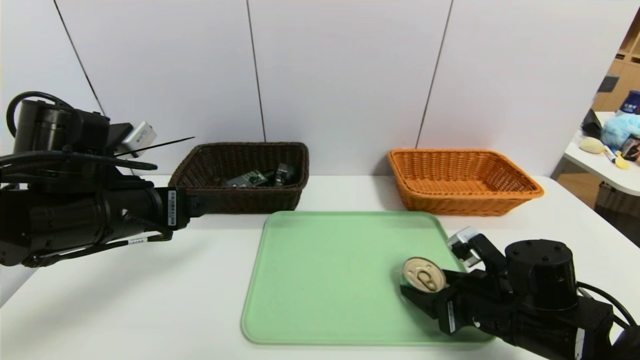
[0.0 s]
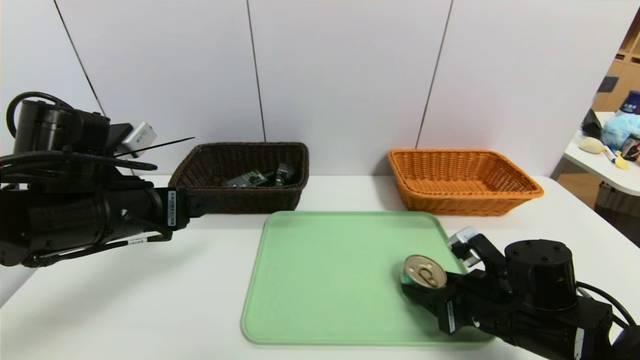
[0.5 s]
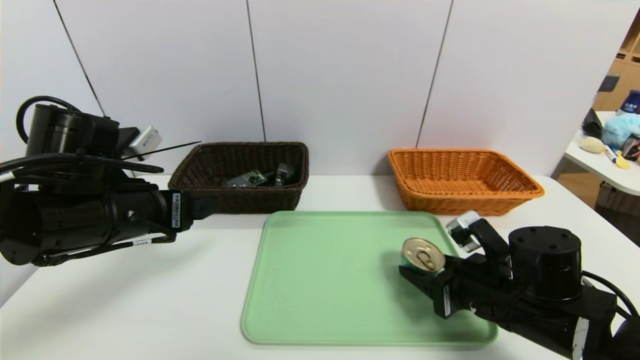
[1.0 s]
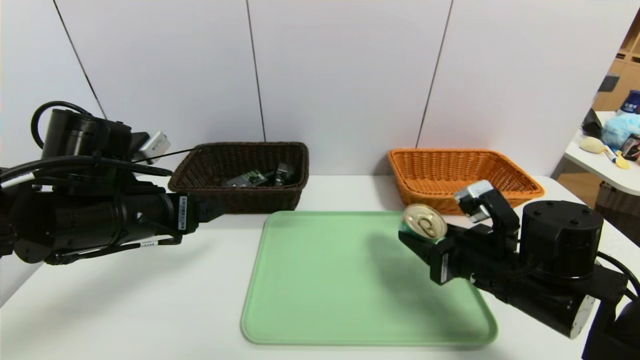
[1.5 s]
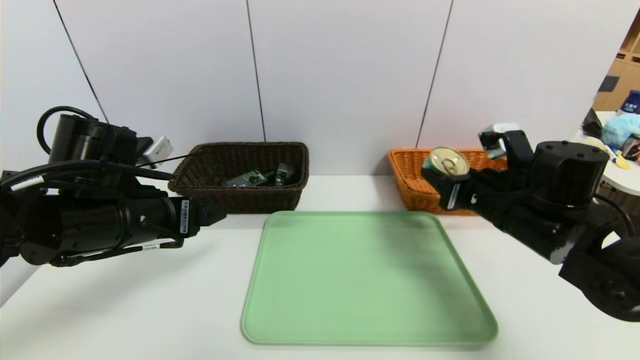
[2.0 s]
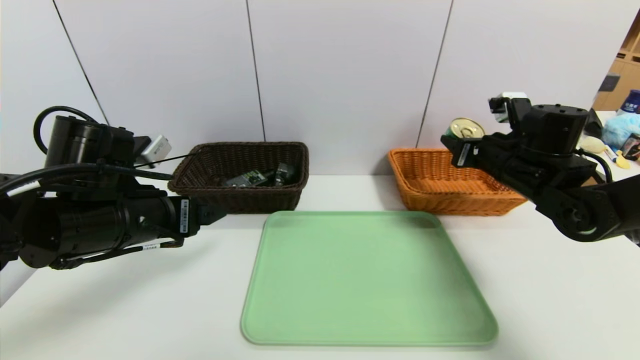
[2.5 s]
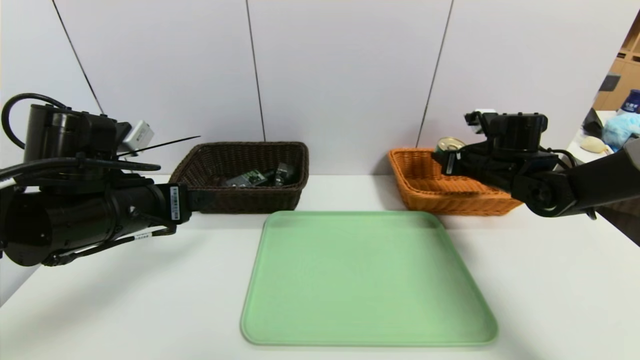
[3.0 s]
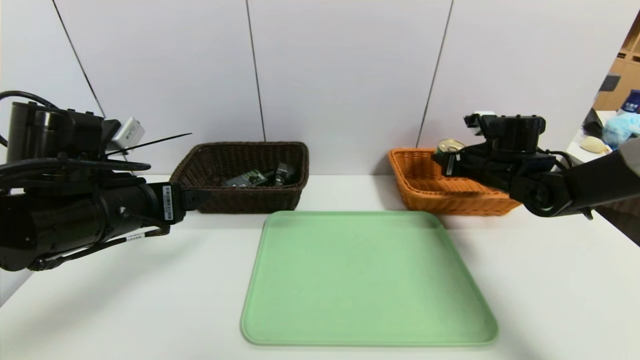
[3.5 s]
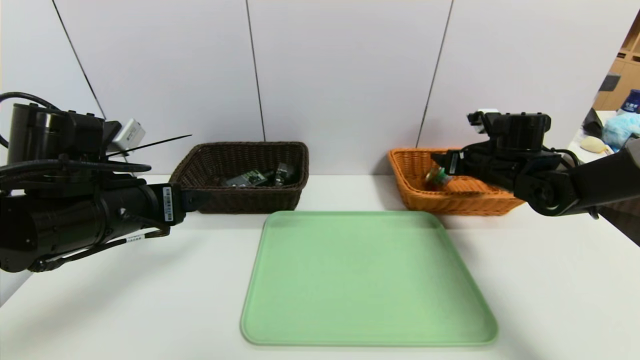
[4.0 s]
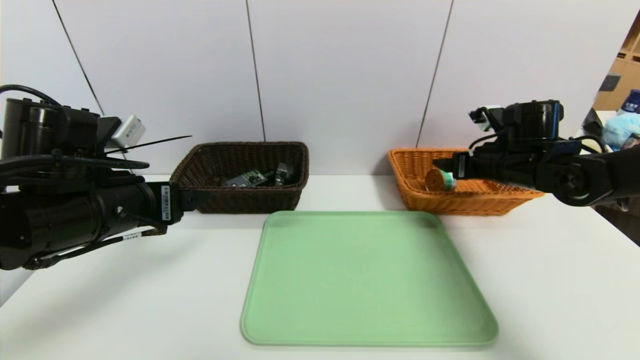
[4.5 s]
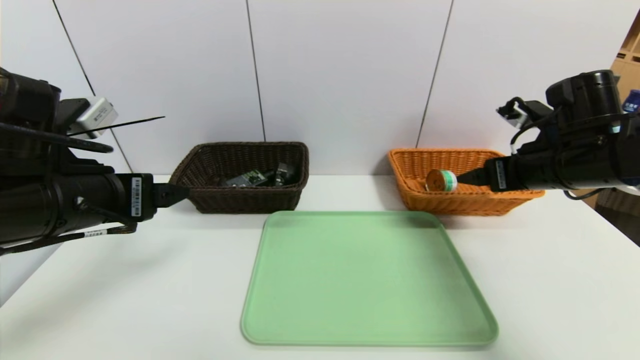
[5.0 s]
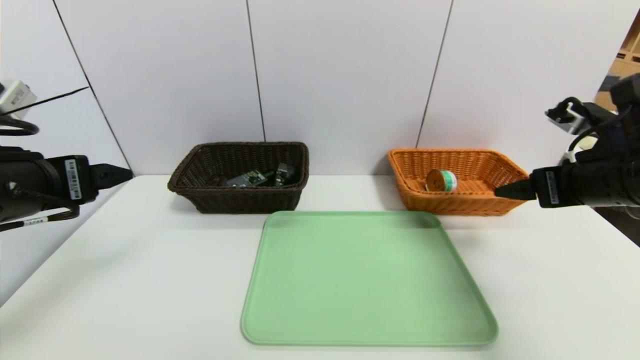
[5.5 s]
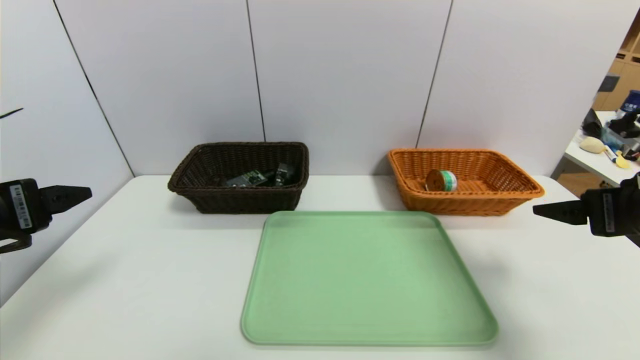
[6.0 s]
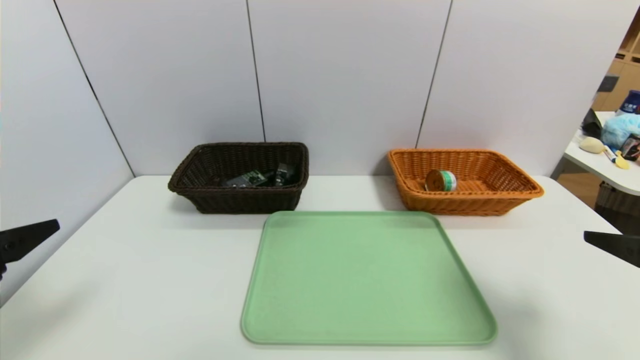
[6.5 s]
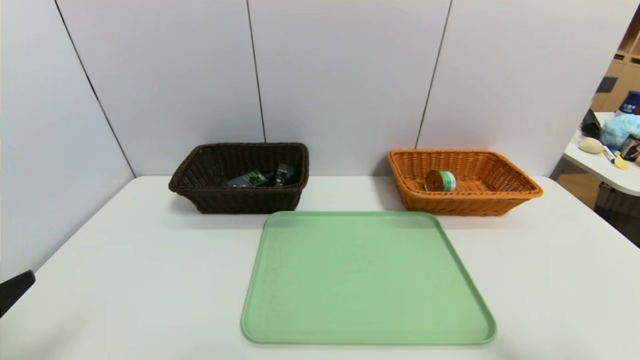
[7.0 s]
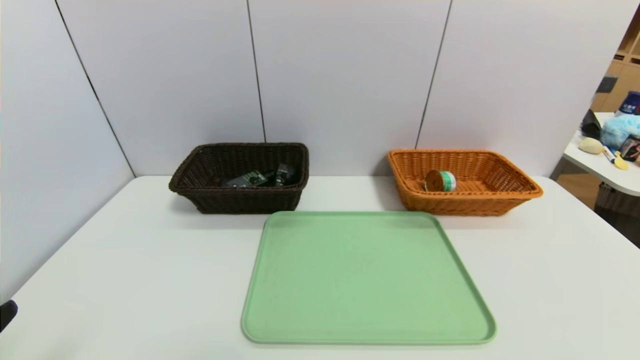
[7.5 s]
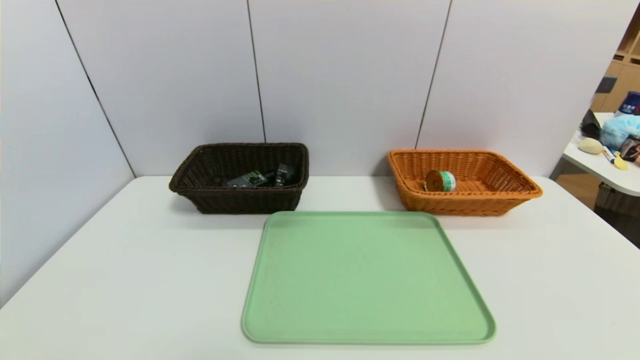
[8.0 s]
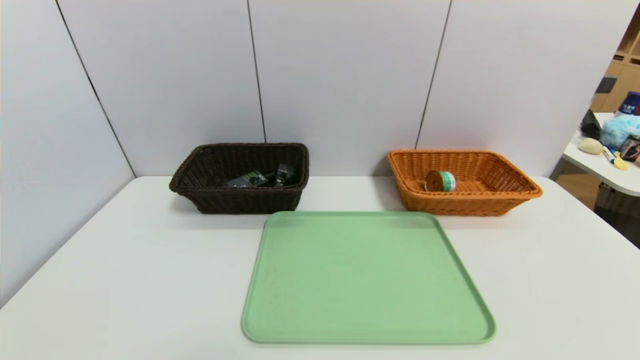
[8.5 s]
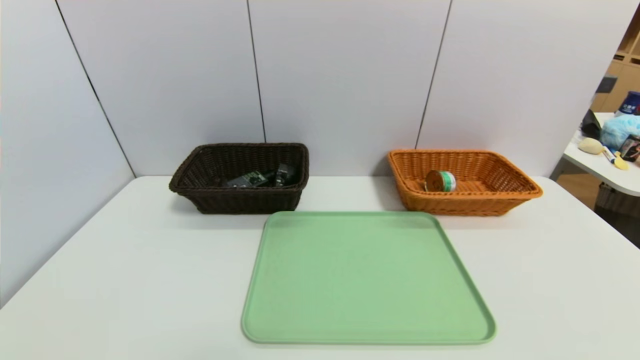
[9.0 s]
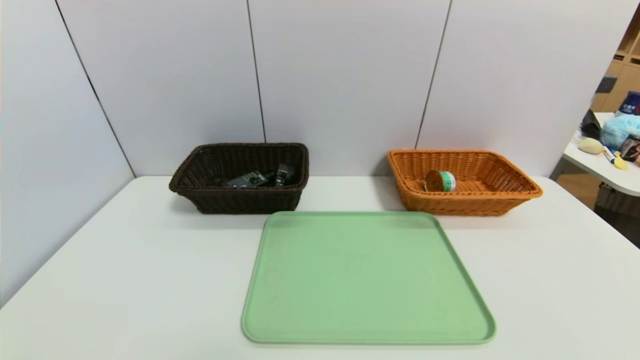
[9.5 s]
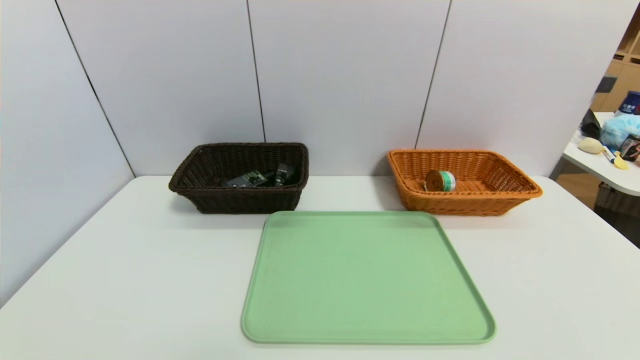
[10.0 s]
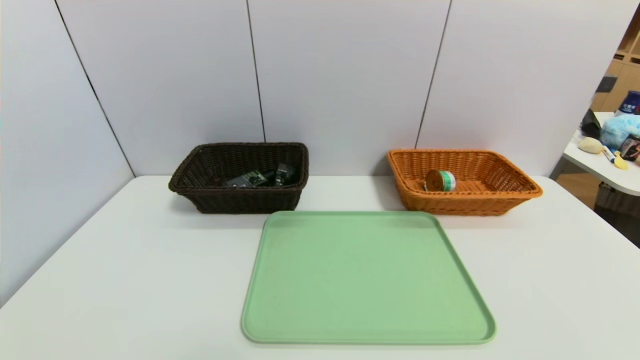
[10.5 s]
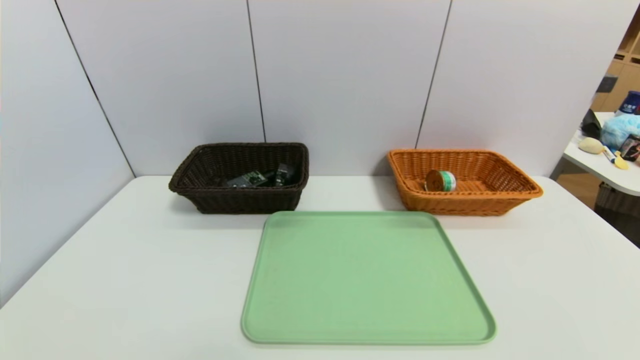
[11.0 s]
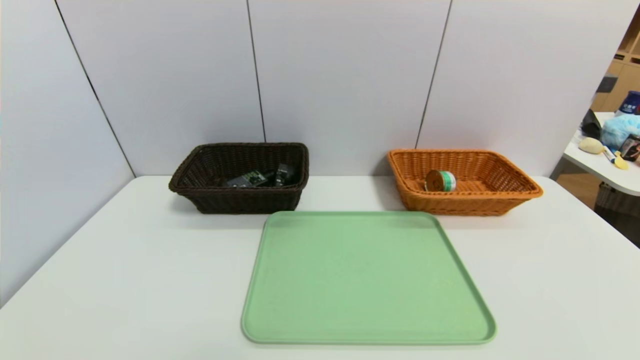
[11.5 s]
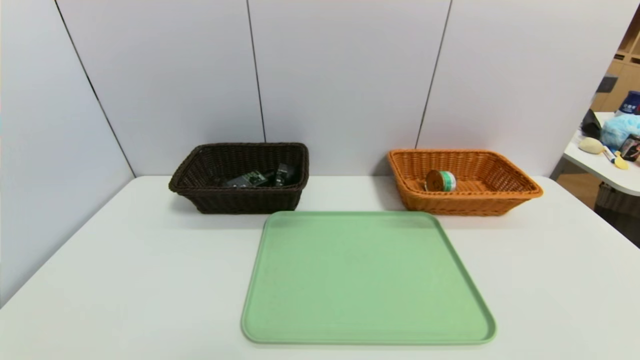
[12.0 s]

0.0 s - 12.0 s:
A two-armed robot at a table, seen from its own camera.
Task of the whole recording: place the food in the right basket with the right gripper, and place the non food items in the left basket with the left gripper.
Step, 0.0 s - 4.5 s: Grasp the can and put it in the right basket.
0.0 s - 2.0 s: The right gripper heads upward and forward, covering approximately 15 cm.
2.0 s - 4.0 s: The right gripper heads forward and to the right, covering roughly 15 cm, and opens its fingers.
4.0 s - 6.0 s: The left gripper heads backward and to the left, covering roughly 10 cm. Meanwhile the right gripper travels backward by roughly 20 cm, and opens.
6.0 s - 8.0 s: The left gripper is displaced backward and downward by some 20 cm. The right gripper moves backward, about 25 cm.

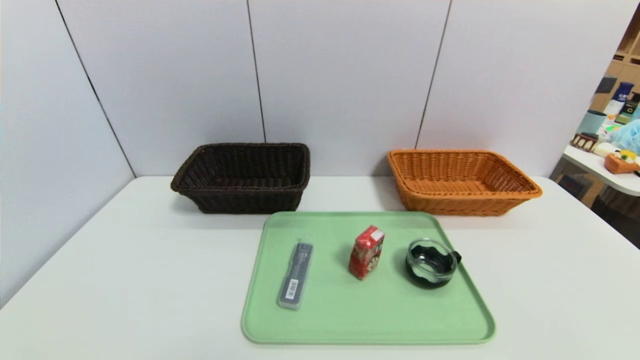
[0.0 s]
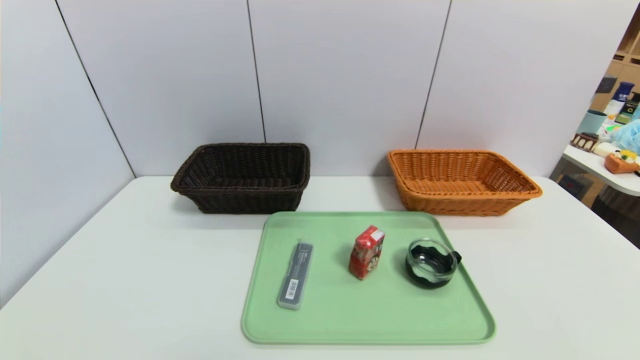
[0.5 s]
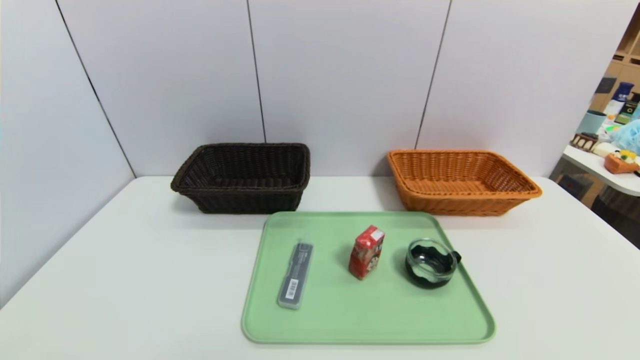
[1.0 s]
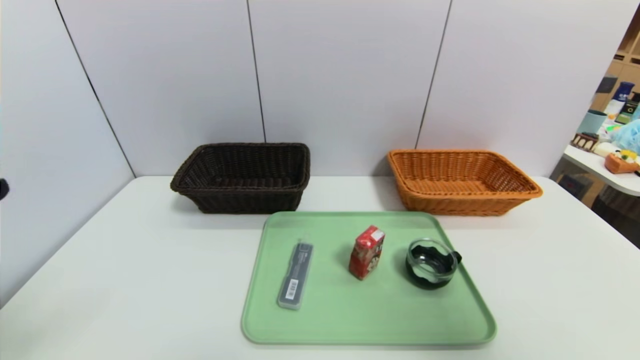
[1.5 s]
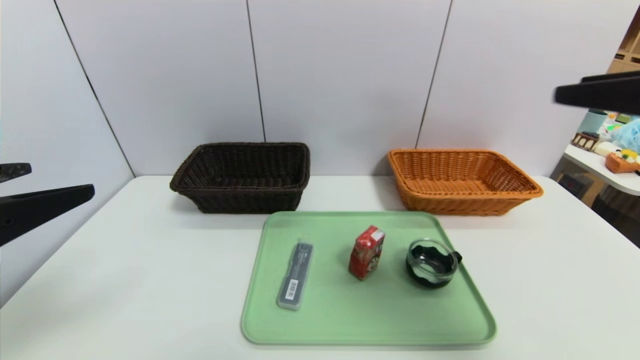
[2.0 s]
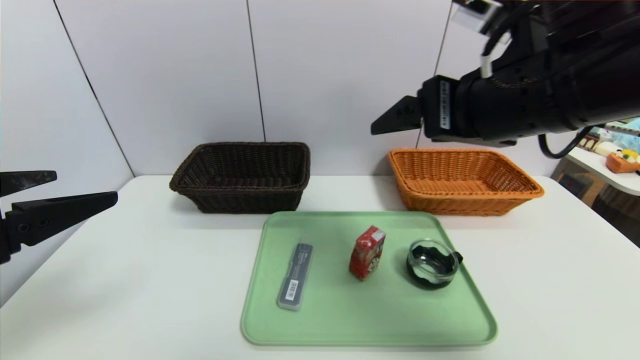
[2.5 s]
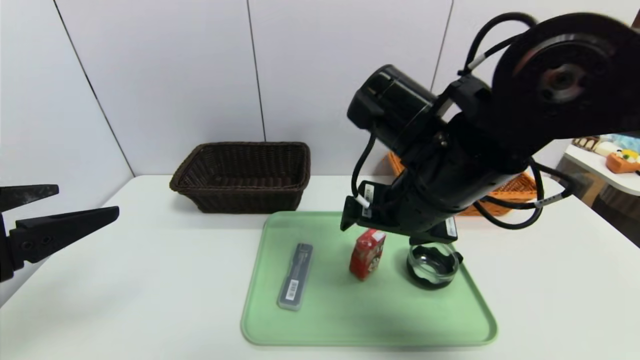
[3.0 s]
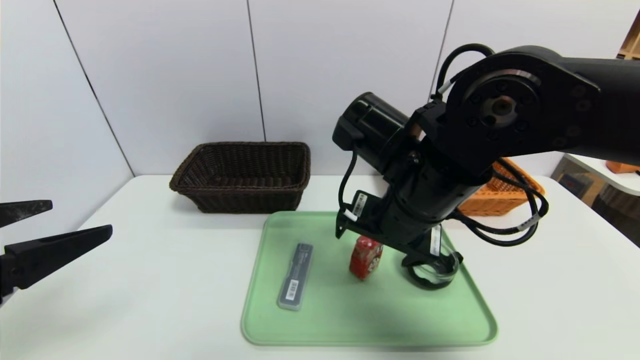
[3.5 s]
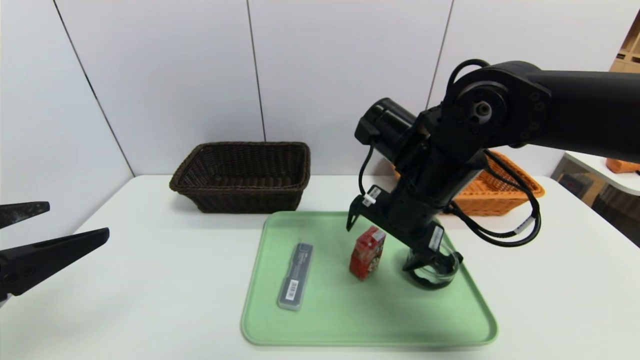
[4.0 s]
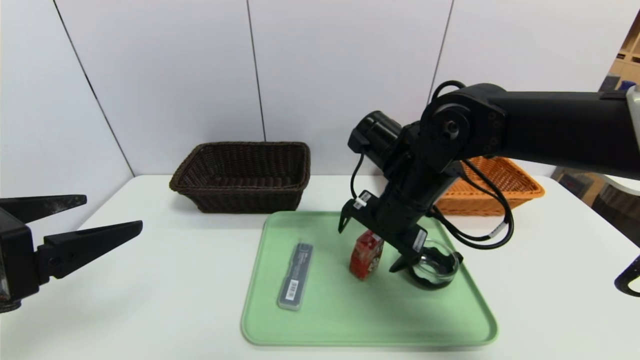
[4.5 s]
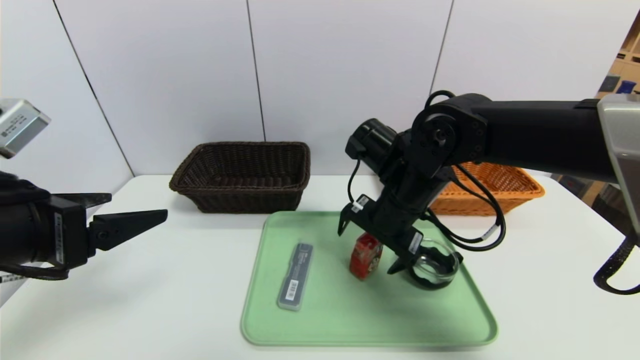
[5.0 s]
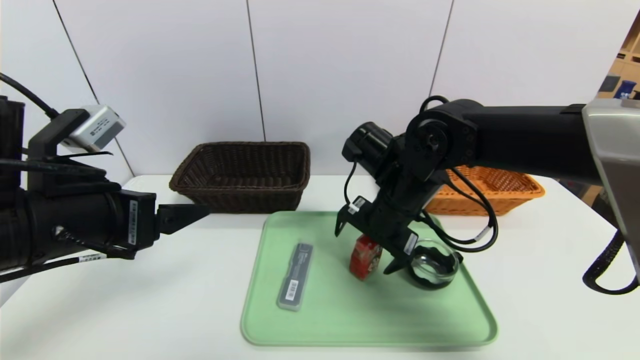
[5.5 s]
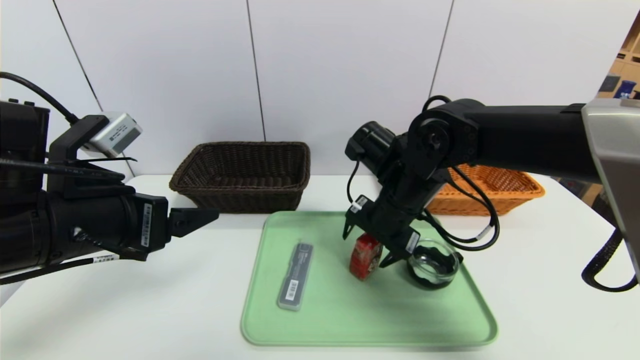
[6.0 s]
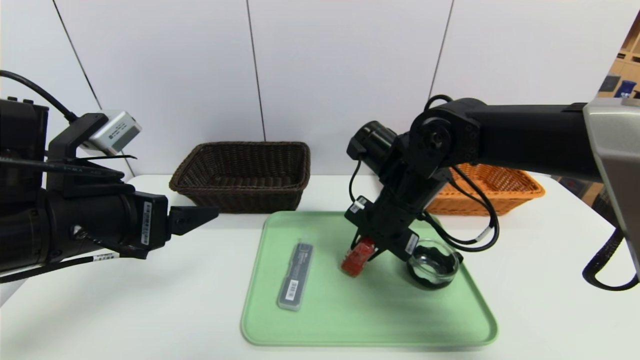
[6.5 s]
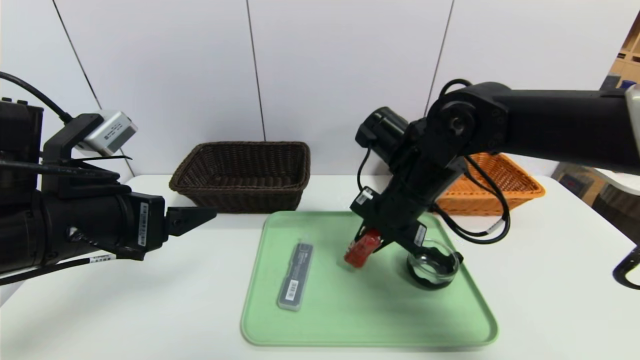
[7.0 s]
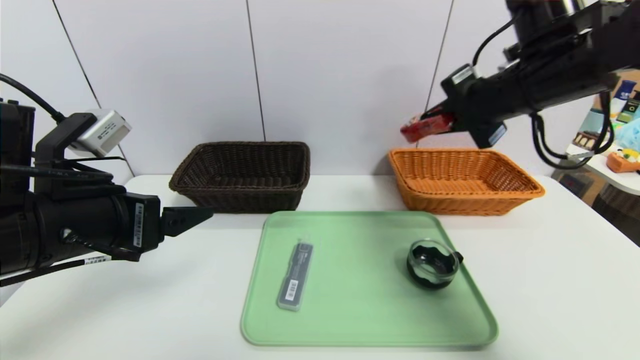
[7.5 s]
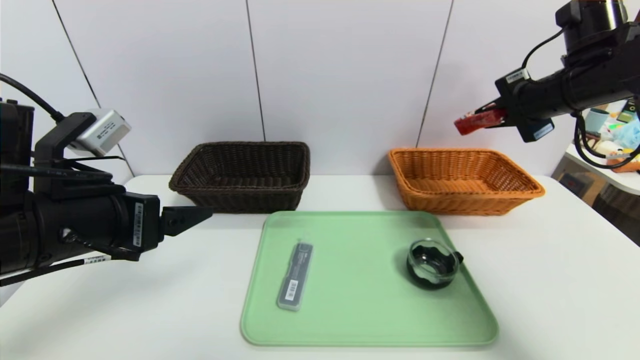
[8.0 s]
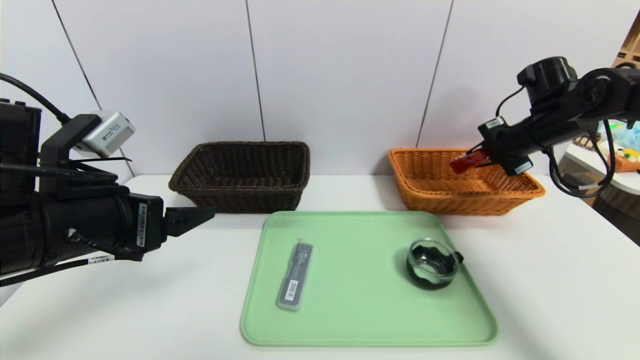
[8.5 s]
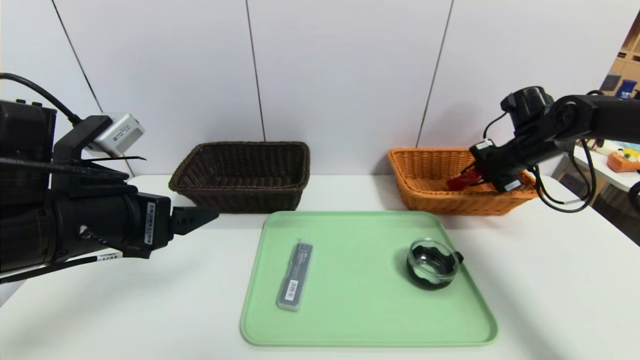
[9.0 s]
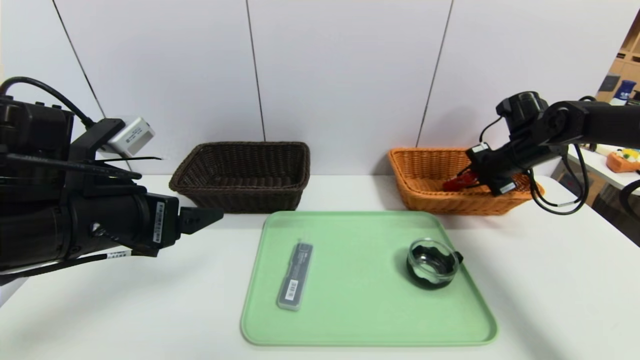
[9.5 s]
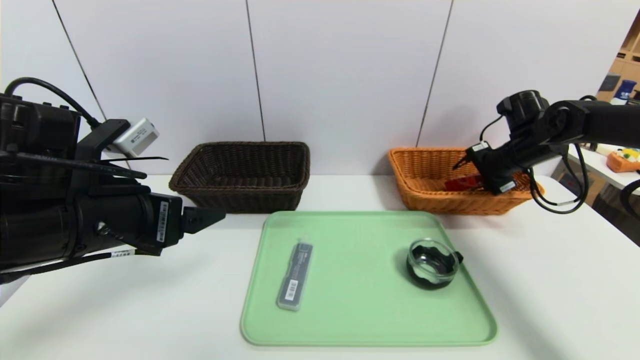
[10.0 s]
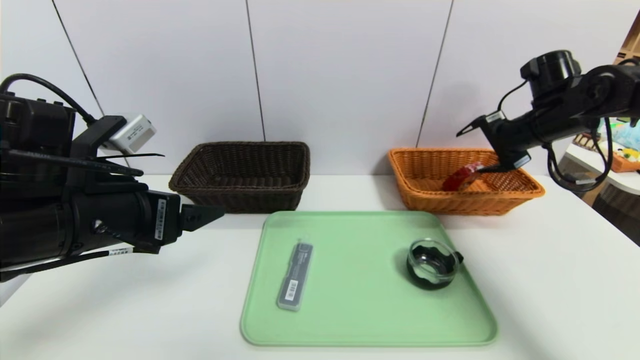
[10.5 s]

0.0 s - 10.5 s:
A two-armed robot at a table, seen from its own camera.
Task of the whole recording: place the food in the right basket with the right gripper, and place the non food items in the left basket with the left gripper.
0.0 s - 2.0 s: The grippers both shift upward and forward by some 30 cm.
2.0 s - 4.0 s: The right gripper goes about 25 cm to the left, forward and downward.
4.0 s - 6.5 s: The right gripper shifts by some 5 cm, and closes. The left gripper is displaced forward and to the right by roughly 10 cm.
6.5 s - 8.5 s: The right gripper heads to the right and forward, covering about 25 cm.
8.5 s - 10.5 s: The right gripper reaches some 5 cm downward, then returns, and opens up.
